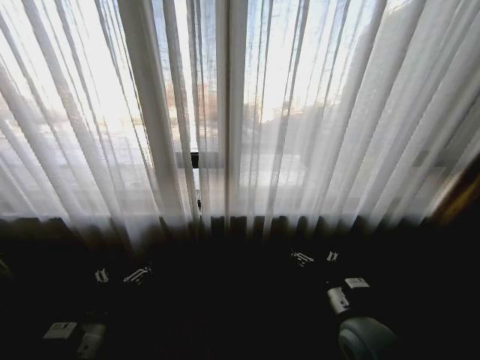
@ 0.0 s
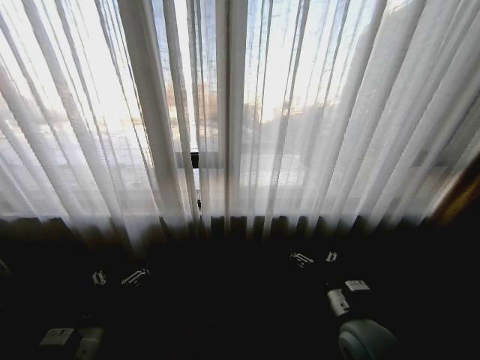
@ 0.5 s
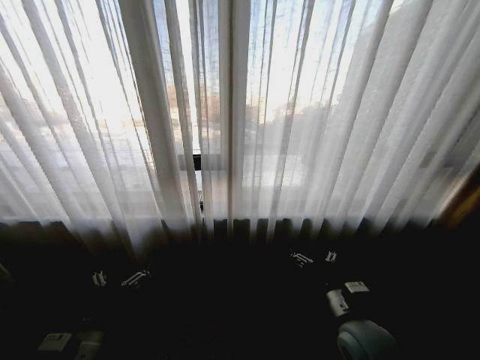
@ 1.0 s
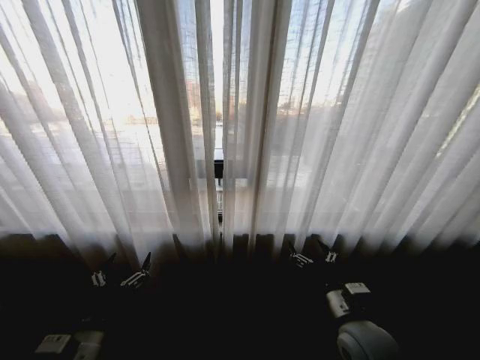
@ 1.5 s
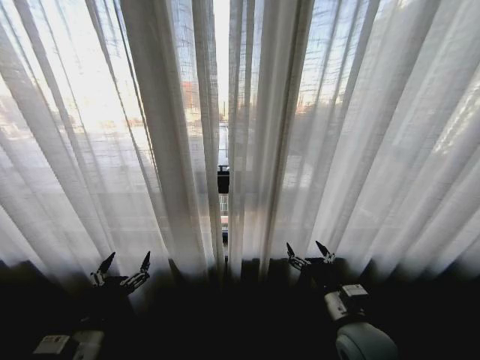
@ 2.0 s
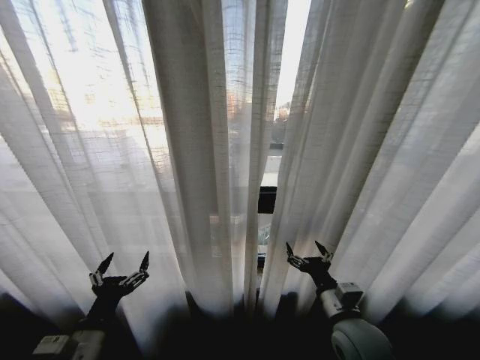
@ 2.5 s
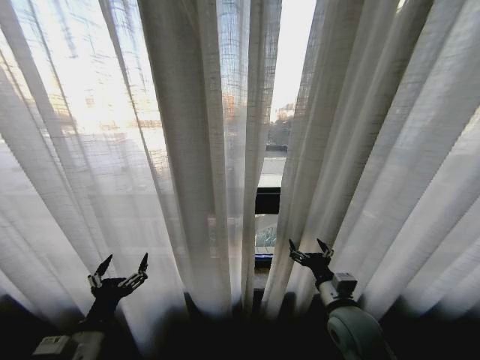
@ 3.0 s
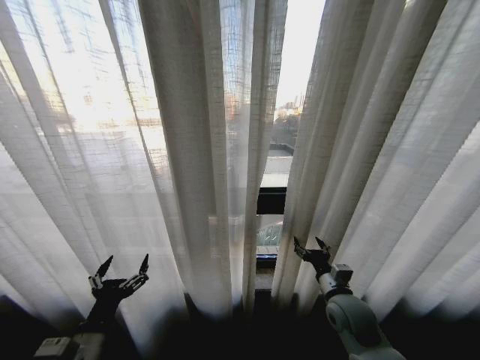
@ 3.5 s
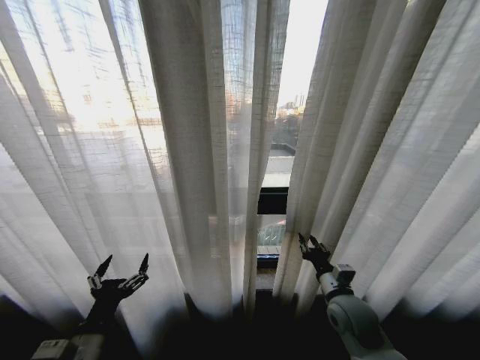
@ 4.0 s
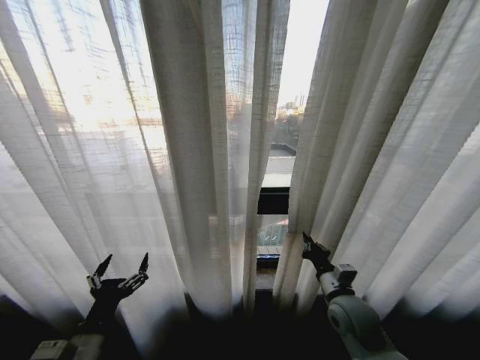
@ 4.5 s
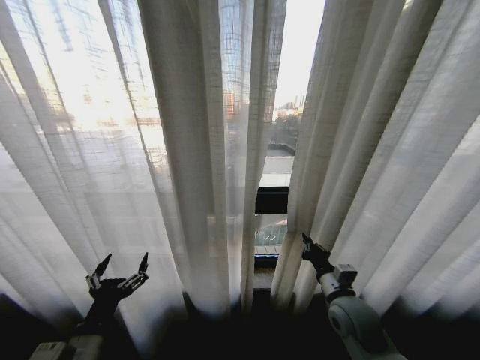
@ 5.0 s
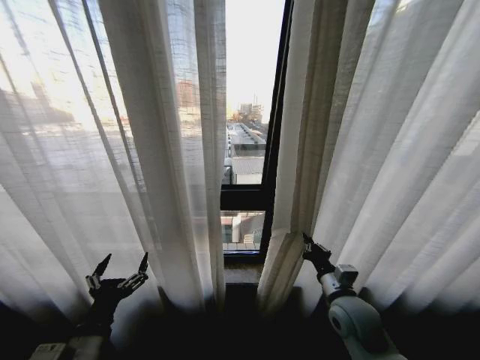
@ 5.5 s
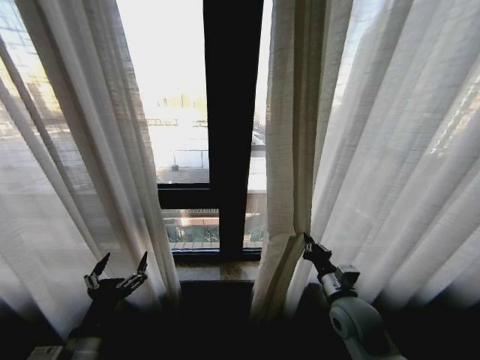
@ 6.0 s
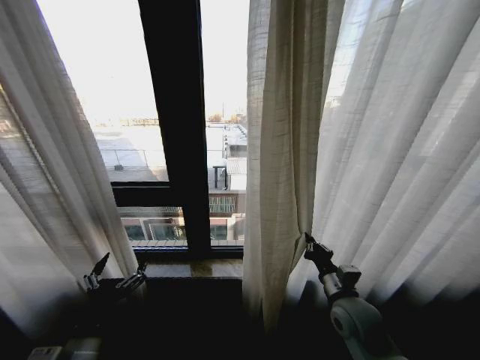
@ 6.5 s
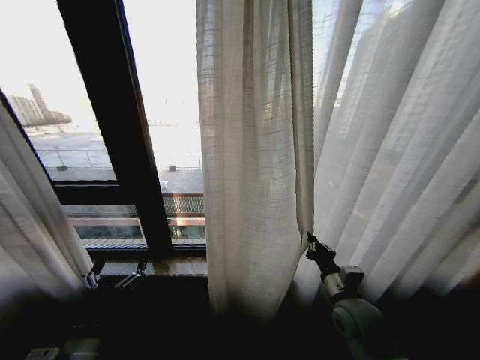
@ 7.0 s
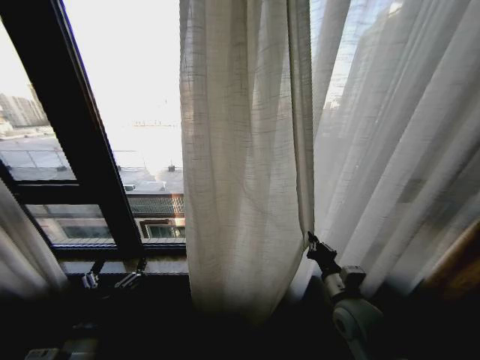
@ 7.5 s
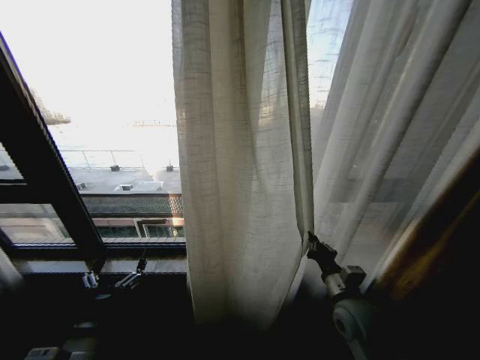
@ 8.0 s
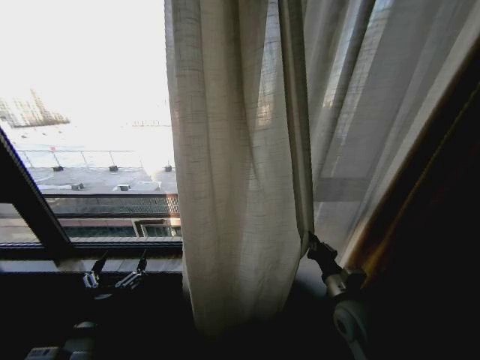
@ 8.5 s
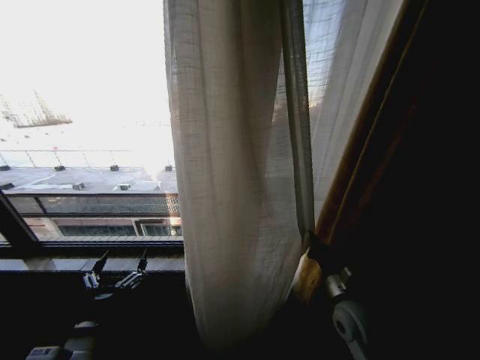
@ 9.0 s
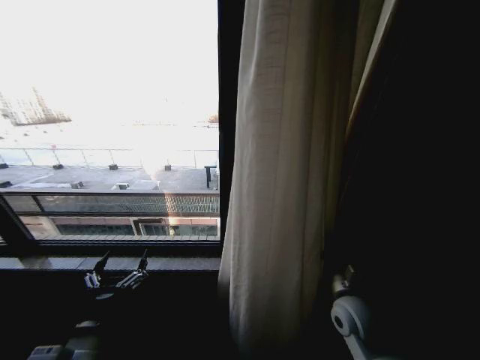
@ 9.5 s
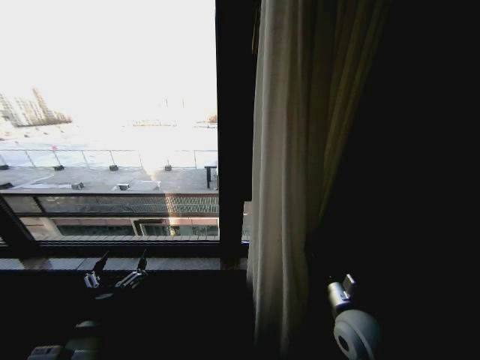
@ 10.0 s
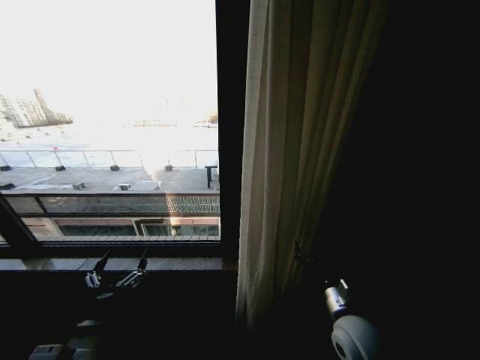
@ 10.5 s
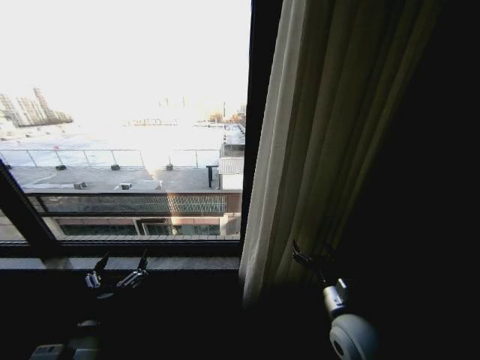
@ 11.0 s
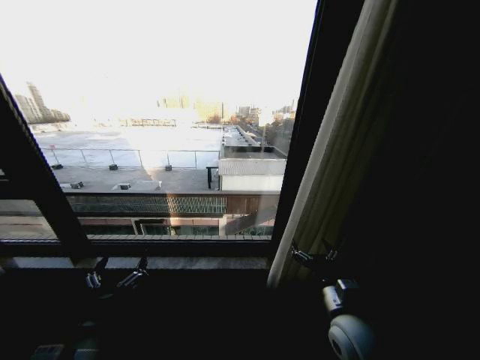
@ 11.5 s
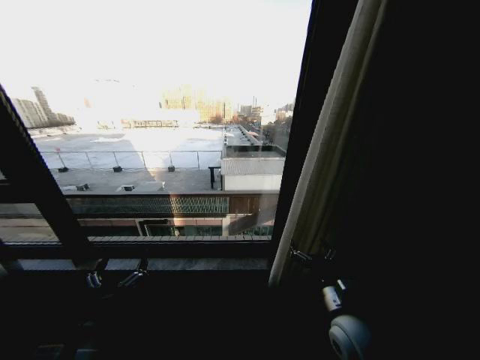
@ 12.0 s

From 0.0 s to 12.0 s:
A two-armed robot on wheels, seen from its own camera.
Task of the whole recording: Open the curtains by pulling them apart, changing their state from closed to fully open.
From 2.0 s to 4.0 s: The right gripper is displaced forward by approximately 5 cm, and closes up.
From 4.0 s to 6.0 s: The right gripper closes up.
From 8.0 s to 10.0 s: The right gripper opens up.
From 10.0 s to 12.0 s: The right gripper opens.

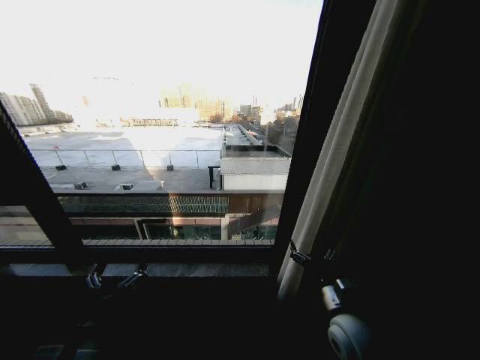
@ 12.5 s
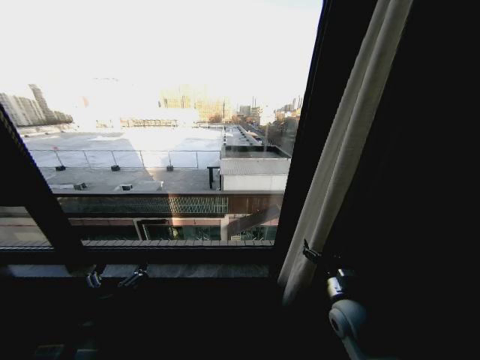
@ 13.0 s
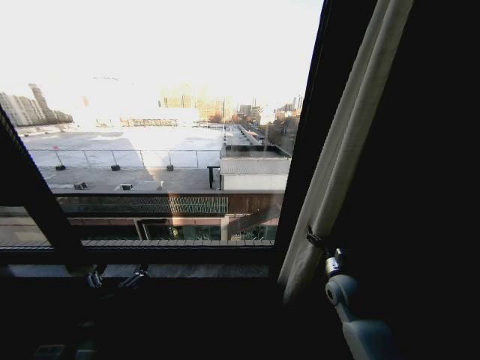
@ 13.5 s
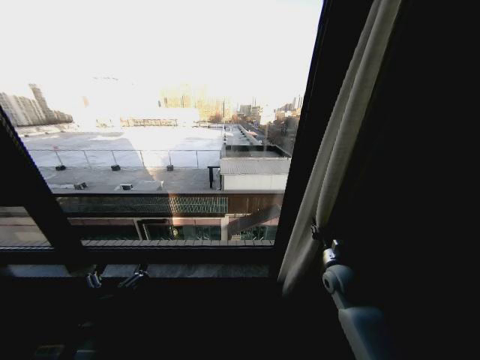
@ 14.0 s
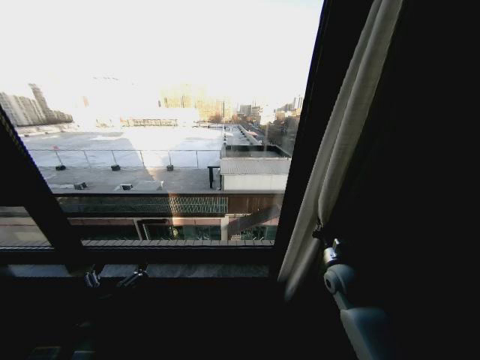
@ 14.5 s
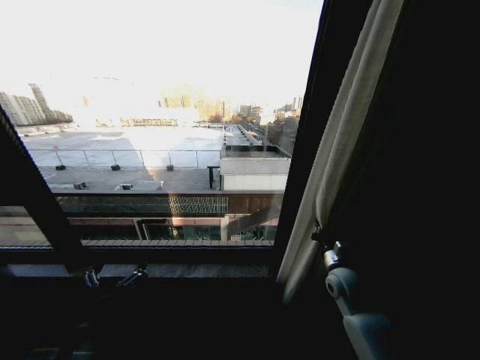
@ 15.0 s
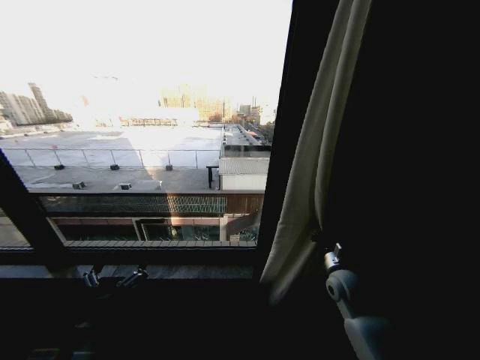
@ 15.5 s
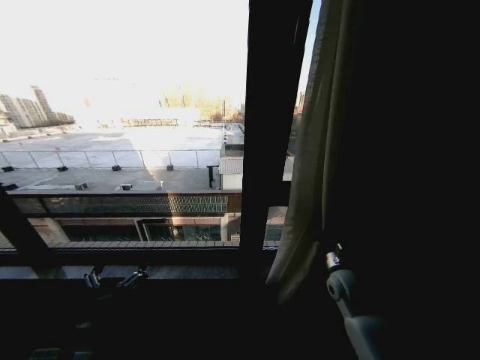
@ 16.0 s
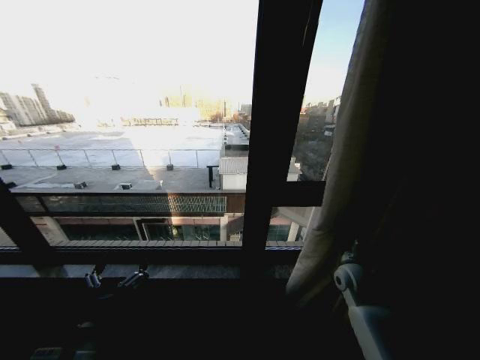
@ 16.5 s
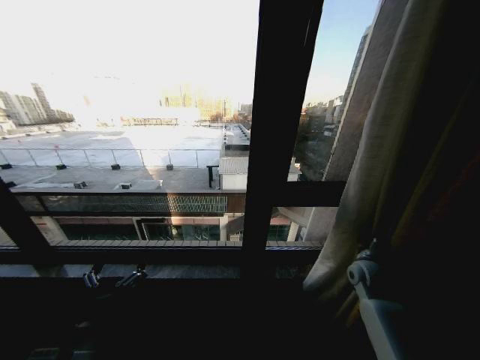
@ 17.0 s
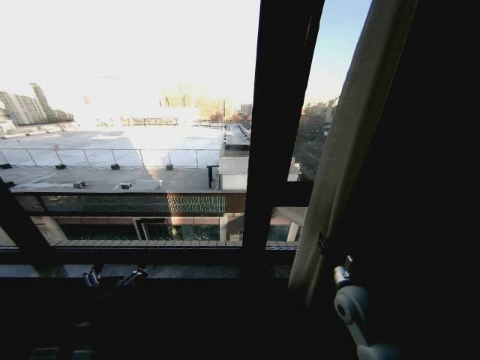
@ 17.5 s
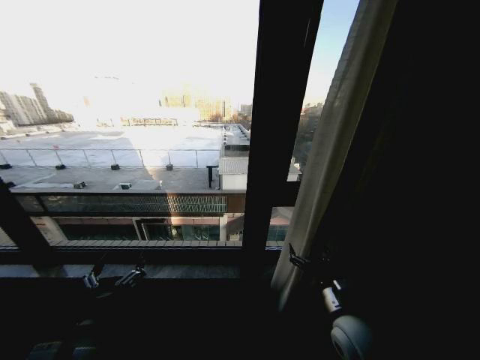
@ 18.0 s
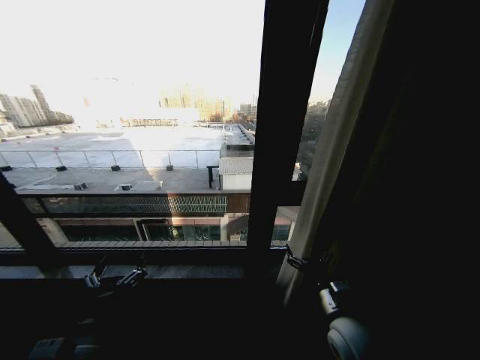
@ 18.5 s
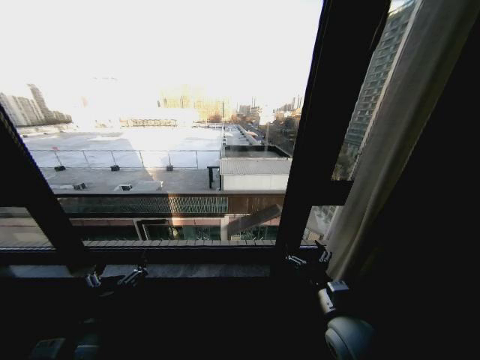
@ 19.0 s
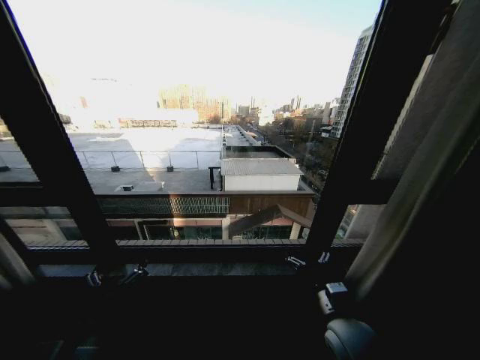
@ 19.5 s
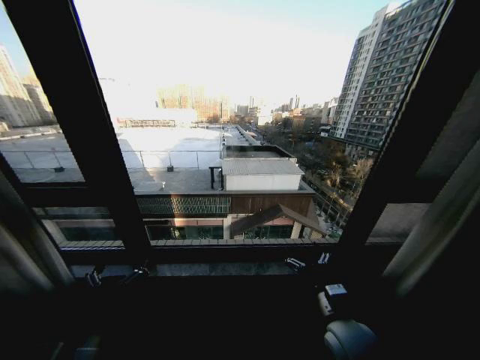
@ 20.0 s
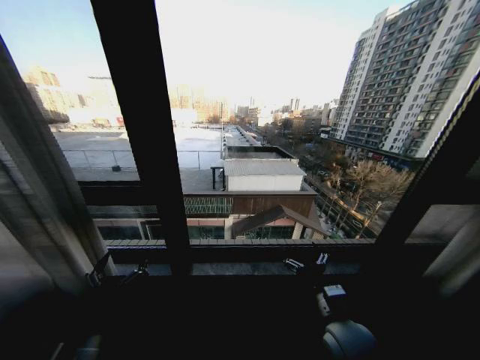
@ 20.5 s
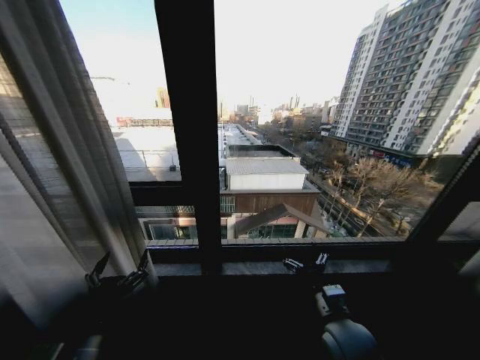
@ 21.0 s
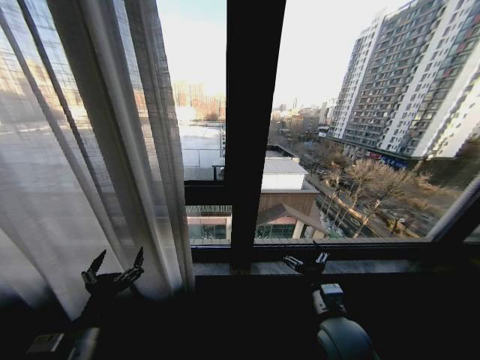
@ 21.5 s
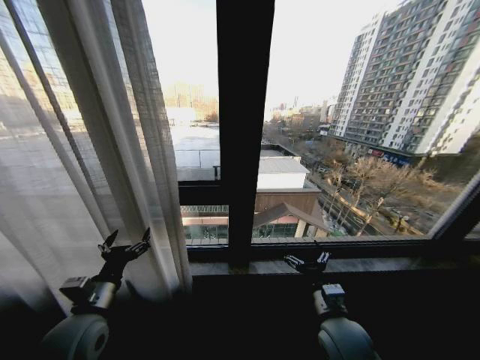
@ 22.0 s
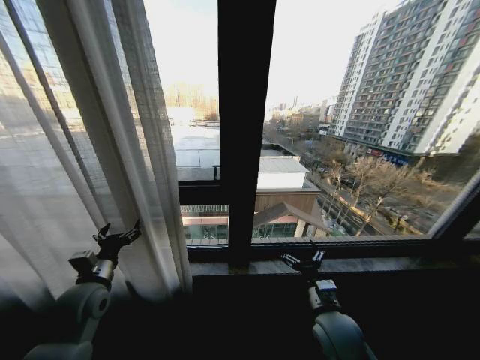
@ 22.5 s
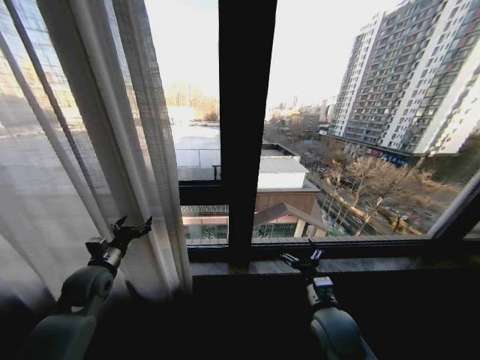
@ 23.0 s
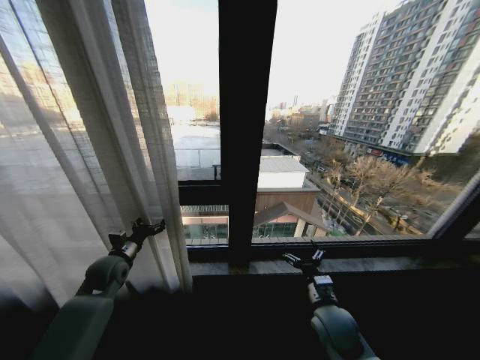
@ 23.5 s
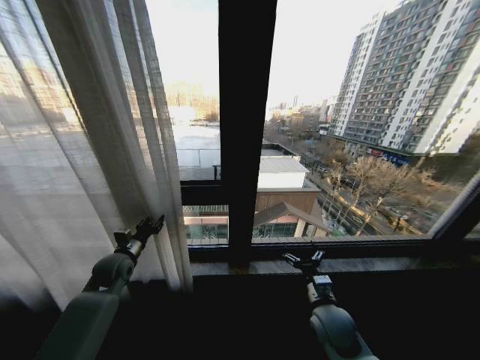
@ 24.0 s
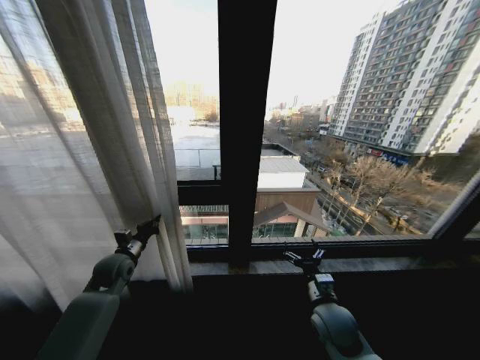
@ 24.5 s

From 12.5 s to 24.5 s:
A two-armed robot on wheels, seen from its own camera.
Task of the whole recording: Open the curtains by pulling them apart, changing their state from closed to fully open.
From 12.5 s to 14.5 s: The right gripper shifts some 15 cm forward and to the right, and closes its fingers.
From 16.5 s to 18.5 s: The right gripper travels backward and to the left by some 20 cm, and opens.
From 20.5 s to 22.5 s: The left gripper heads forward and to the left, covering about 20 cm.
From 22.5 s to 24.5 s: The left gripper goes roughly 10 cm forward, and closes its fingers.

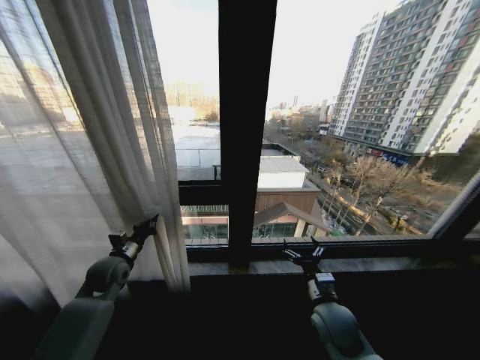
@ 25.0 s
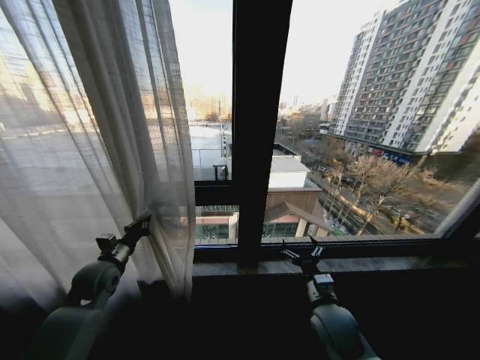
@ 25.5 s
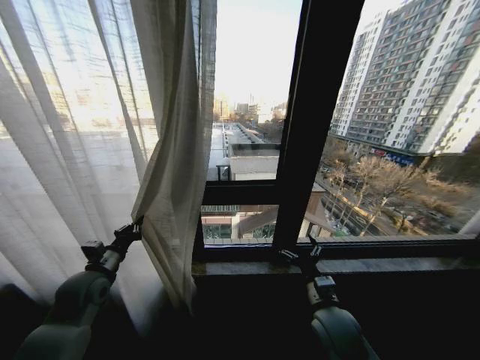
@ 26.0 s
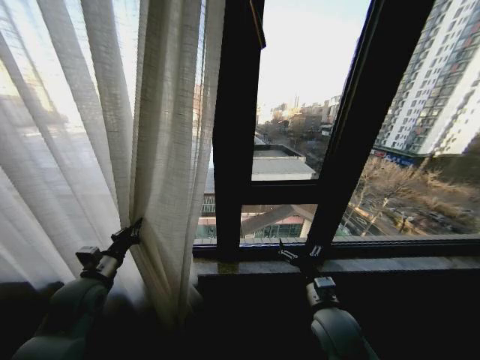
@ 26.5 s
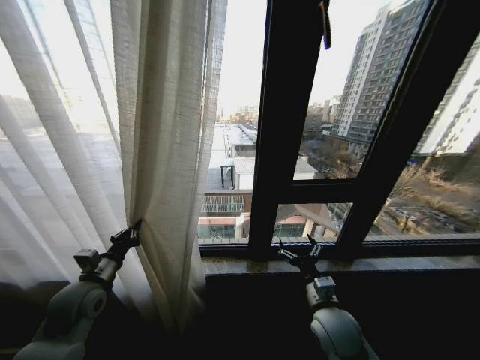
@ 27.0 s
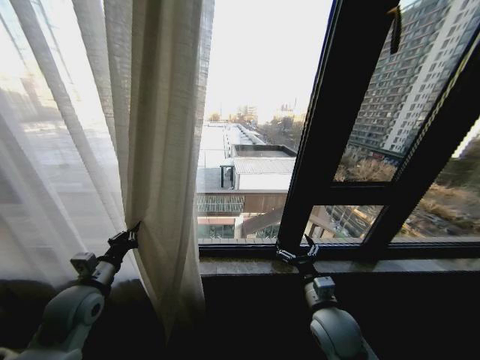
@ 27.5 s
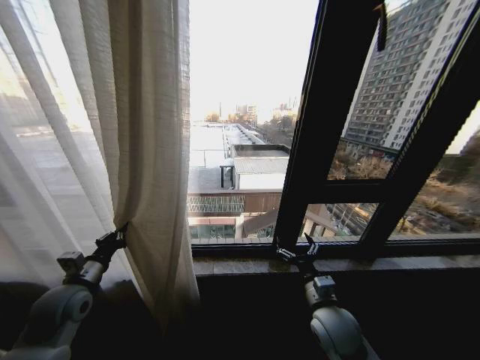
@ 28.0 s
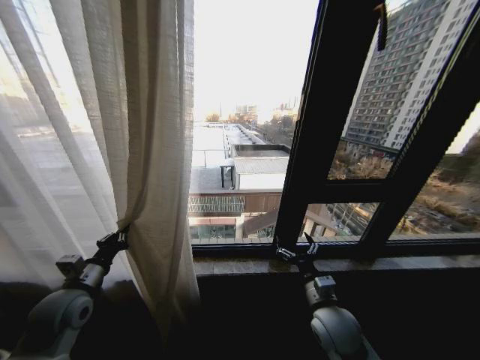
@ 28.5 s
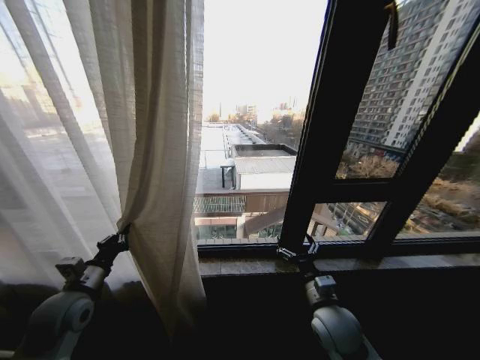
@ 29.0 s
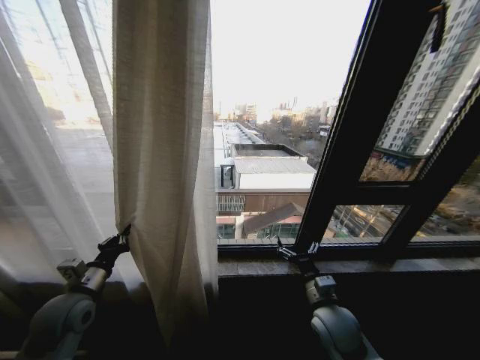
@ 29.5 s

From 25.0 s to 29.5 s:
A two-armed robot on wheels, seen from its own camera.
Task of the whole recording: Open the curtains by pulling them apart, changing their state from closed to fully open.
From 25.0 s to 27.0 s: The left gripper travels backward by roughly 10 cm.
